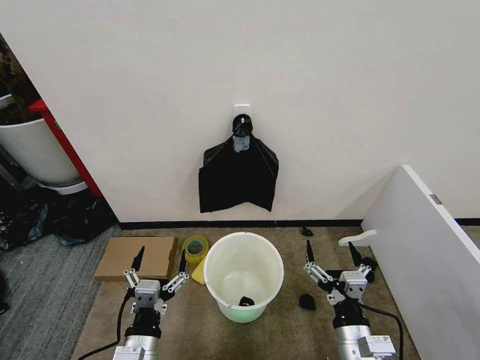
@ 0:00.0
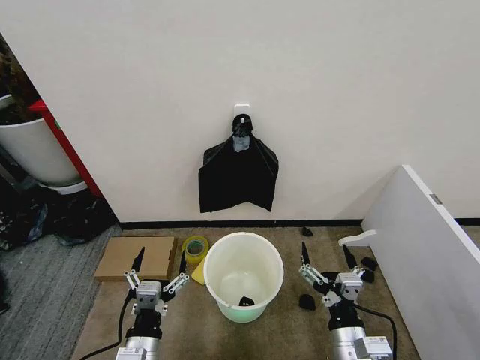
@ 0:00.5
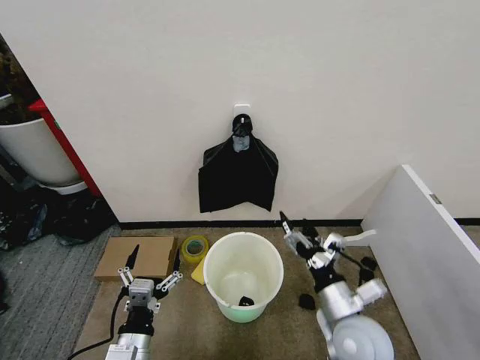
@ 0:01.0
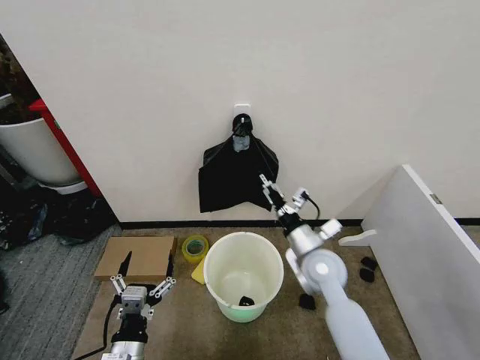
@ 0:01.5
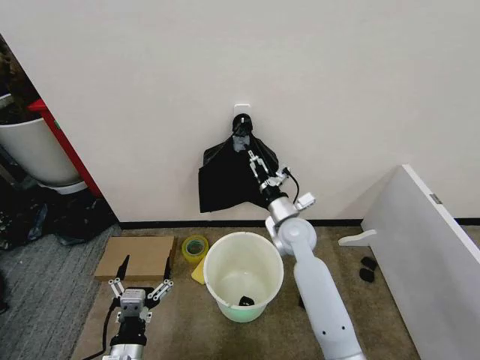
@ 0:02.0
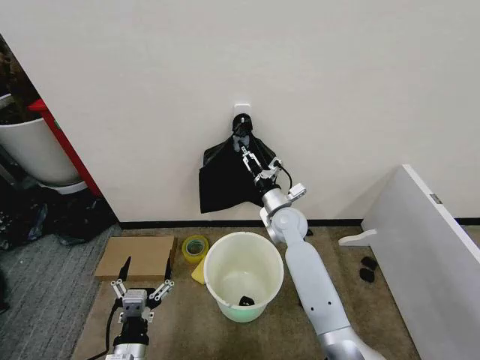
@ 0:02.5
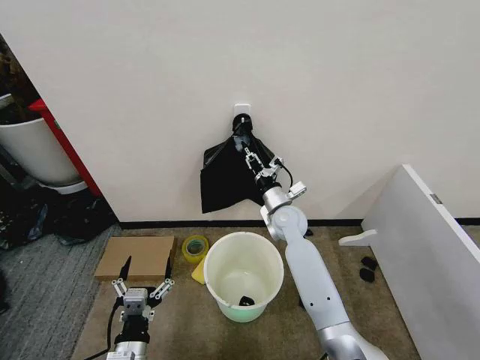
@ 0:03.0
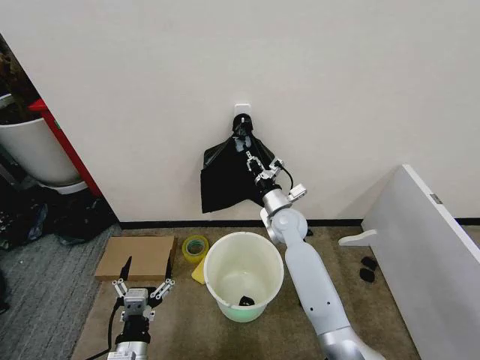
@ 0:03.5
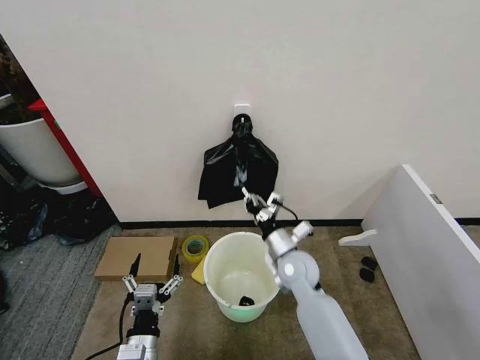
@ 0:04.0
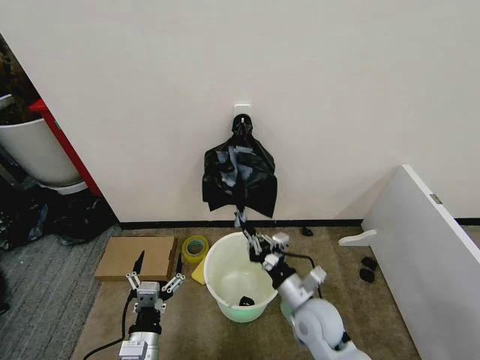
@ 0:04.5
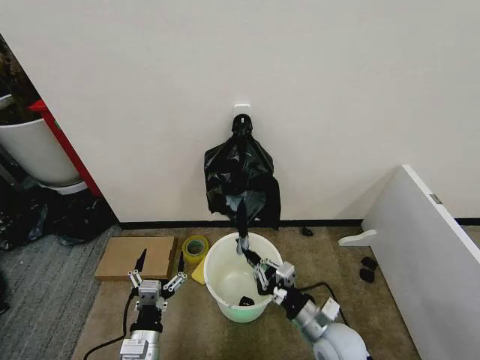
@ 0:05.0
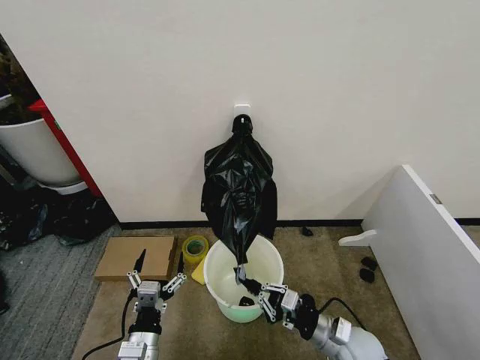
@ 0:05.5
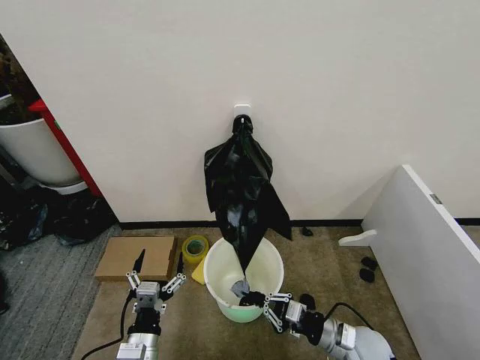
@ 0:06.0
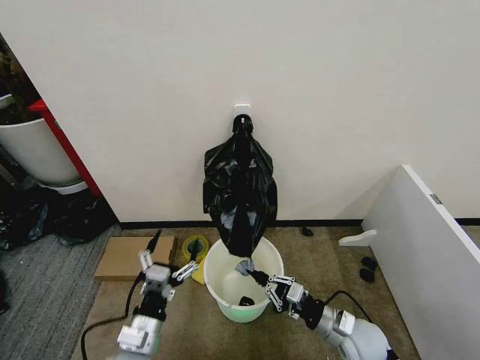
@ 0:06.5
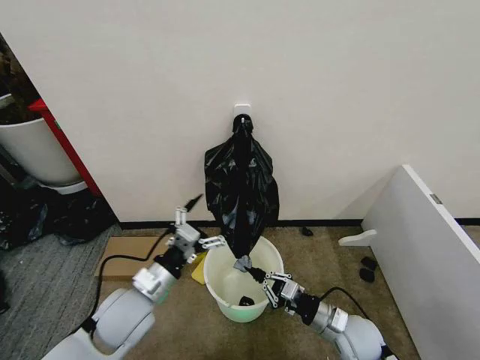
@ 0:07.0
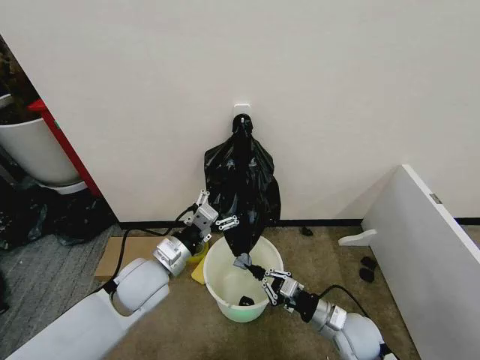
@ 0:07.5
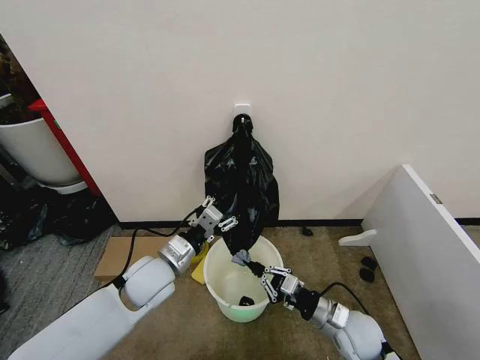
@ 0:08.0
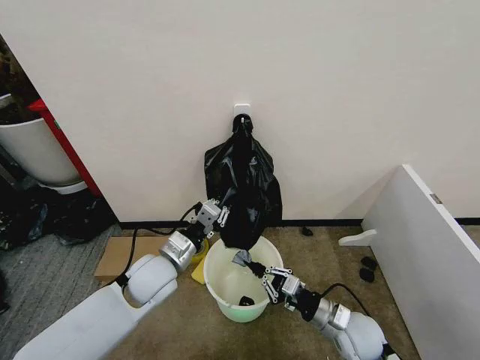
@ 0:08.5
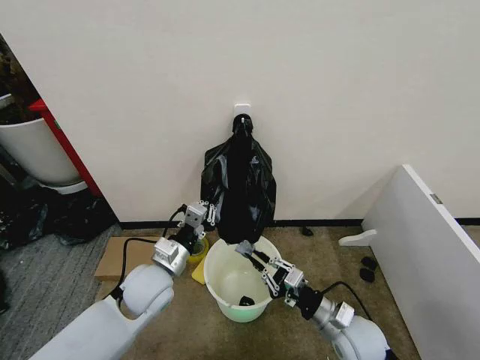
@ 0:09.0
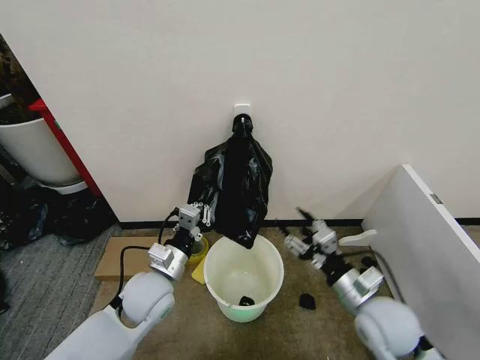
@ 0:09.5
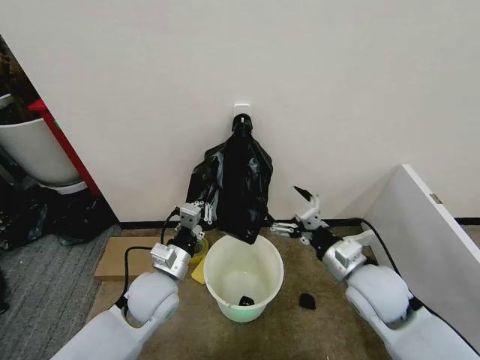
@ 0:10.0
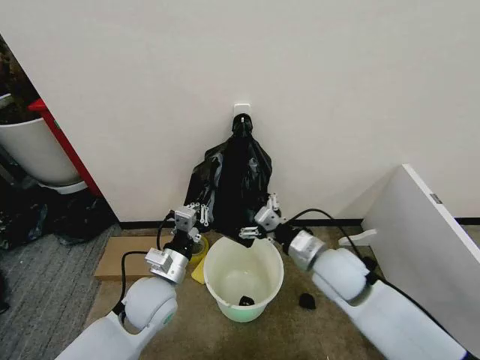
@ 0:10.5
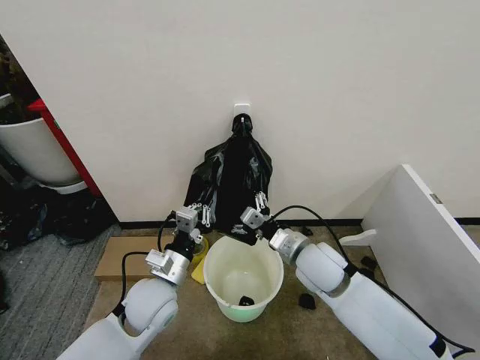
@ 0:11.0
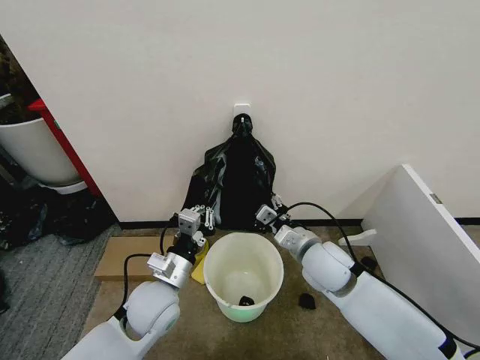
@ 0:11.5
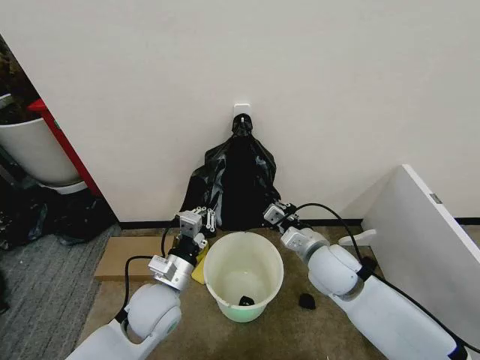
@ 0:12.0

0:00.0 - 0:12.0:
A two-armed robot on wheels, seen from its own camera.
Task of the whole recording: Place the garbage bag over the trash bin.
0:02.0 - 0:04.0: The right gripper goes some 10 cm backward, and closes its fingers.
0:04.0 - 0:06.0: The right gripper is displaced backward, to the right and downward by roughly 20 cm.
0:06.0 - 0:08.0: The left gripper shifts roughly 20 cm forward and upward, and closes its fingers.
0:08.0 - 0:10.0: The left gripper closes its fingers. The right gripper is displaced upward by roughly 15 cm, and opens.
0:10.0 - 0:12.0: The right gripper travels to the left and forward by some 10 cm, and closes its fingers.

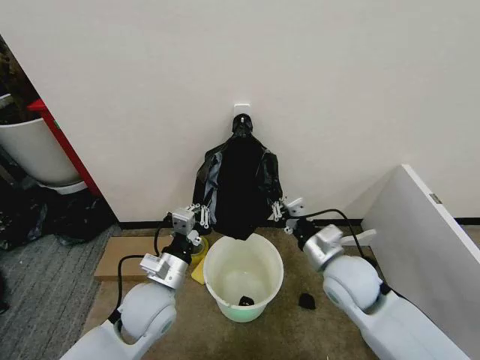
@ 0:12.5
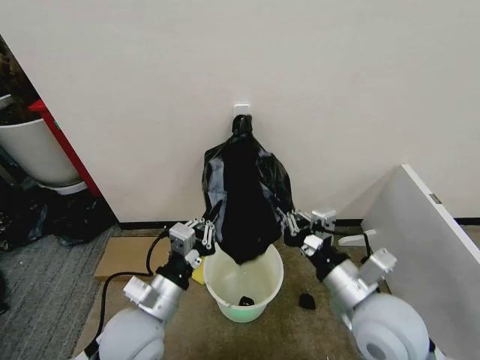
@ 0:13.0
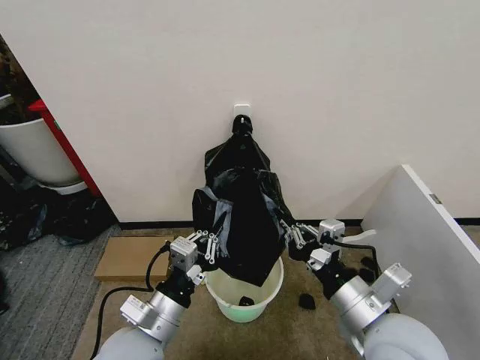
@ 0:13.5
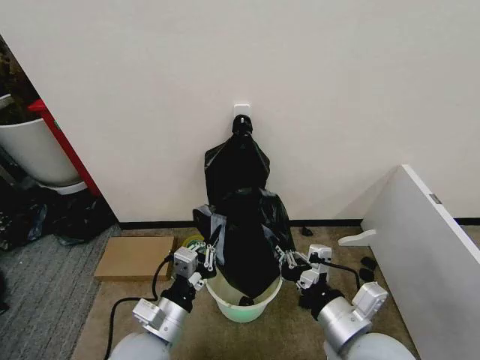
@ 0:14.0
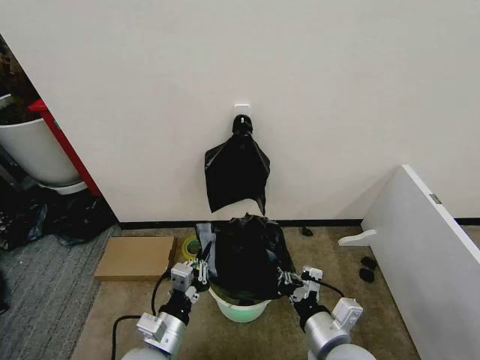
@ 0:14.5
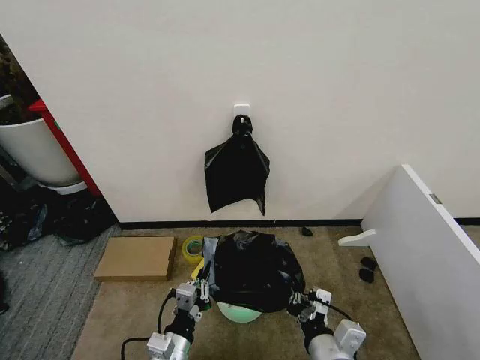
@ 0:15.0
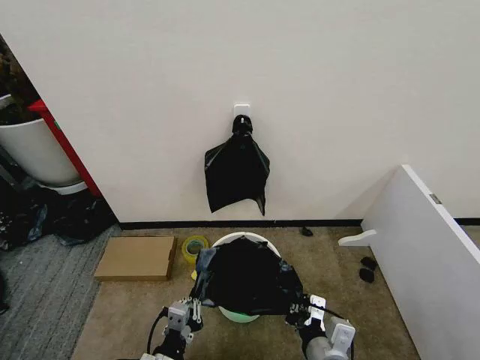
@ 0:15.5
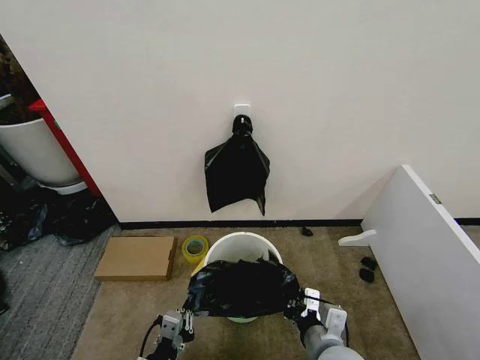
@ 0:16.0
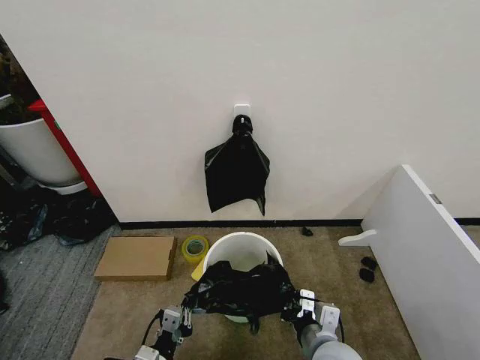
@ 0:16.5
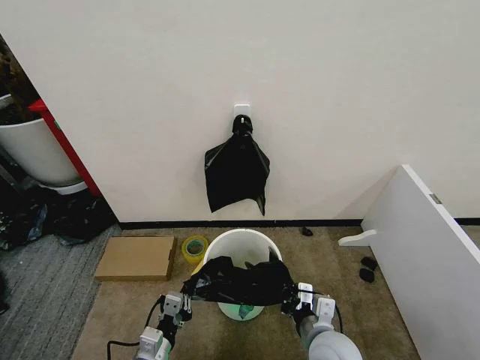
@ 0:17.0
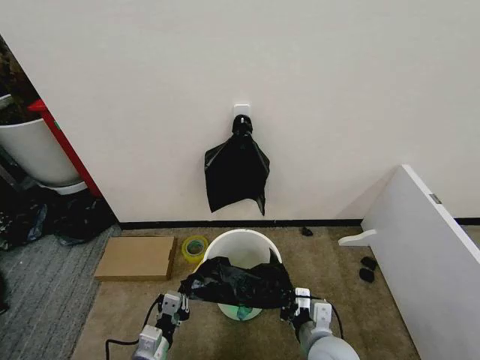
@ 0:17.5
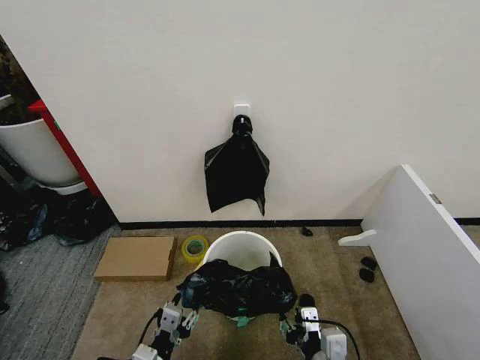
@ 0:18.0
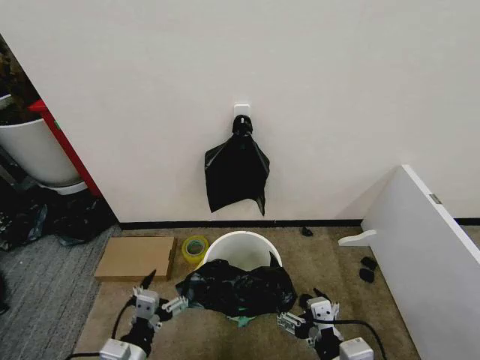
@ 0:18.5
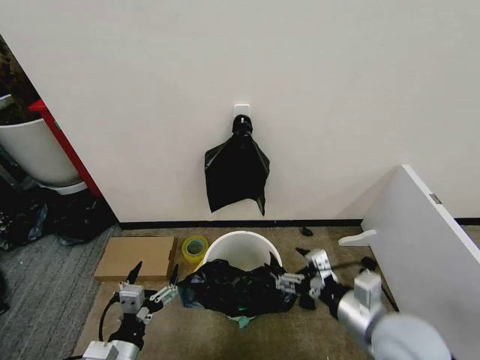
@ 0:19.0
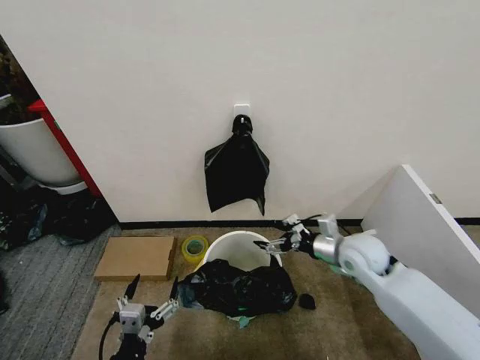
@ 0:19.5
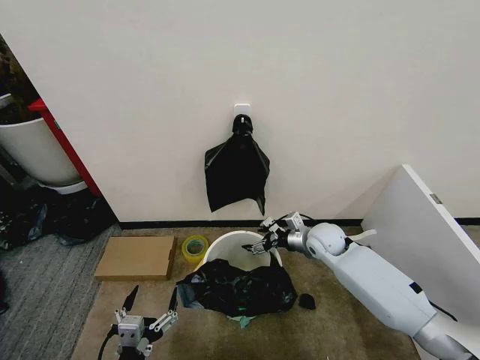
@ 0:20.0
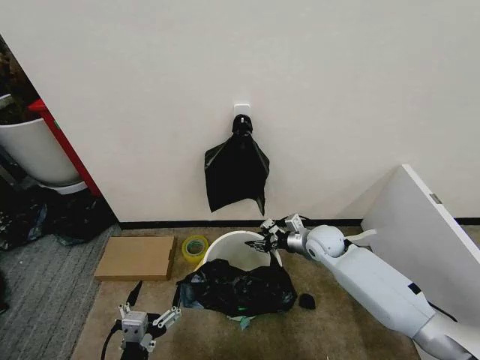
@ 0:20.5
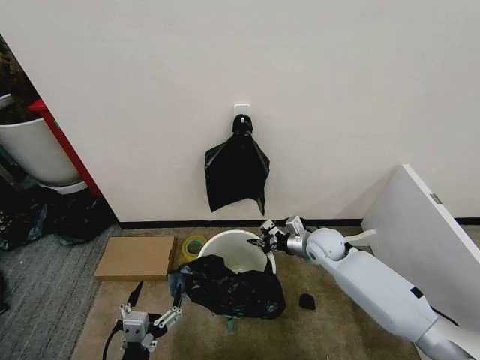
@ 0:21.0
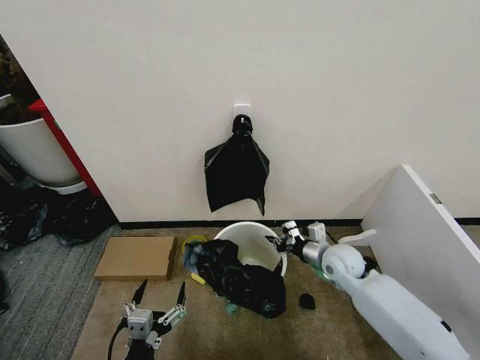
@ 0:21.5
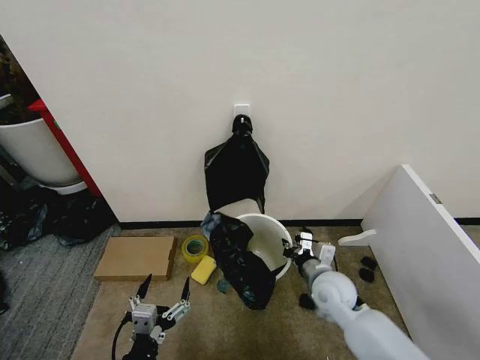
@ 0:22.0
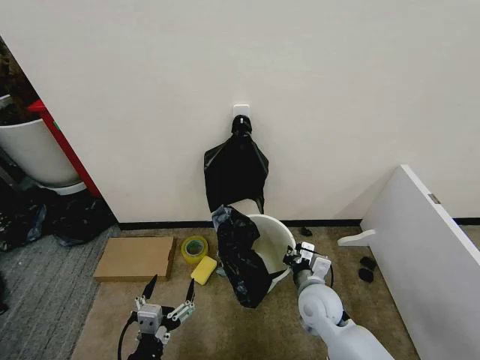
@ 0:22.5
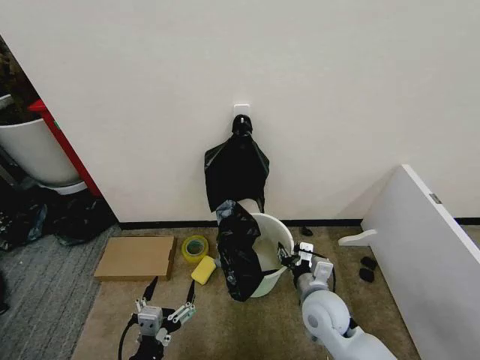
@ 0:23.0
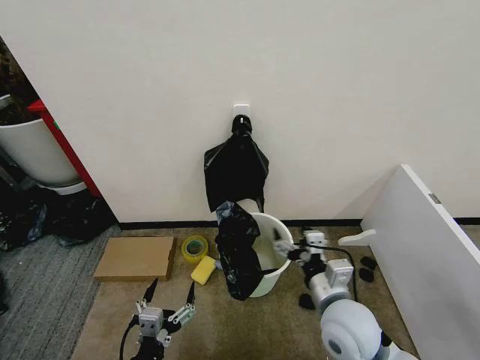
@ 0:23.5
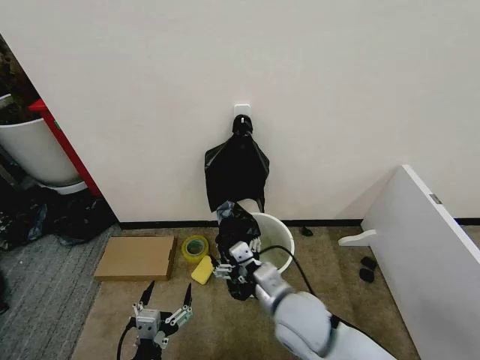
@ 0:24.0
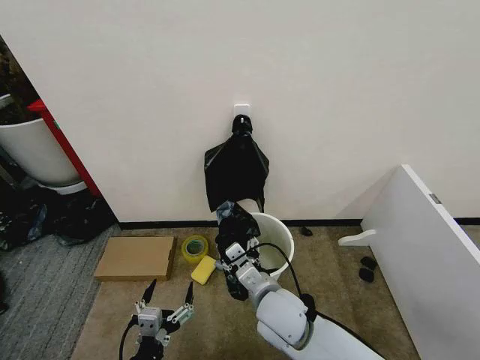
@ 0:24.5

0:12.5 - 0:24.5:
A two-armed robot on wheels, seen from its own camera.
Task of the whole recording: Place the garbage bag over the trash bin.
0:12.5 - 0:14.5: The right gripper shifts about 15 cm backward. The left gripper is displaced backward and downward by approximately 10 cm.
0:14.5 - 0:16.5: The left gripper moves downward, approximately 5 cm.
0:16.5 - 0:18.5: The left gripper moves upward, roughly 5 cm, and opens up. Meanwhile the right gripper heads backward and upward, covering approximately 10 cm, and opens.
0:18.5 - 0:20.5: The right gripper goes about 35 cm forward, and closes its fingers.
0:20.5 - 0:22.5: The right gripper goes approximately 15 cm backward, and closes up.
0:22.5 - 0:24.5: The right gripper goes about 15 cm to the left and upward, and opens its fingers.

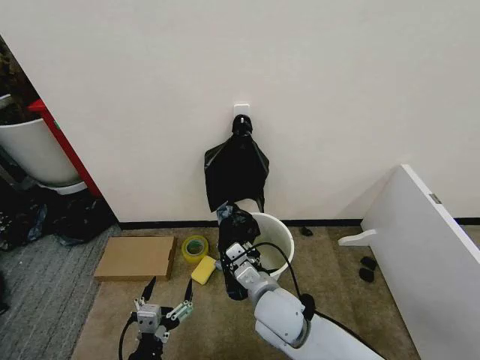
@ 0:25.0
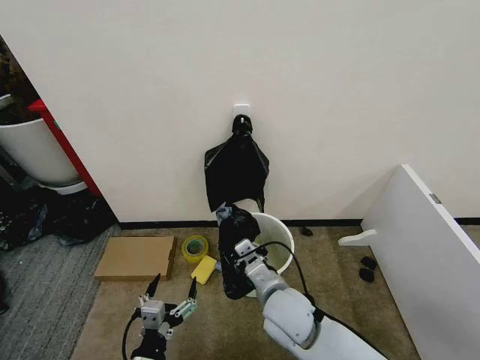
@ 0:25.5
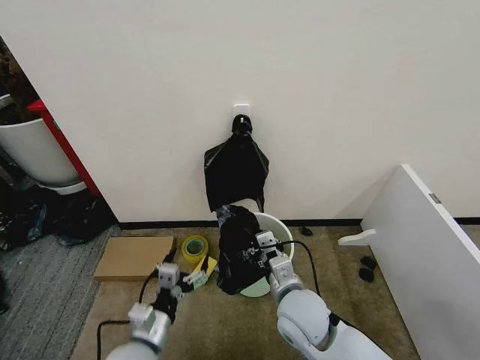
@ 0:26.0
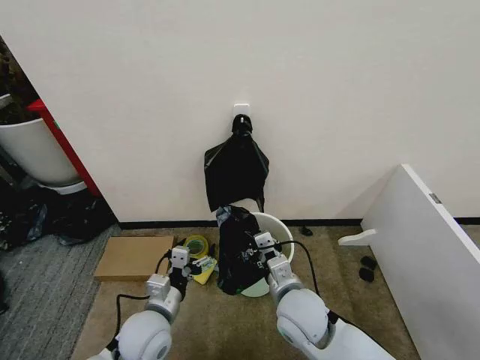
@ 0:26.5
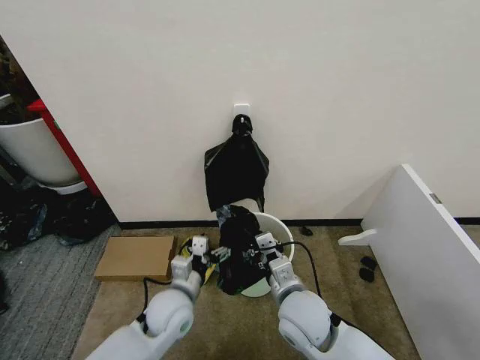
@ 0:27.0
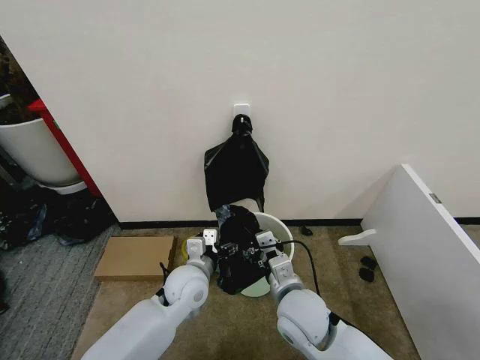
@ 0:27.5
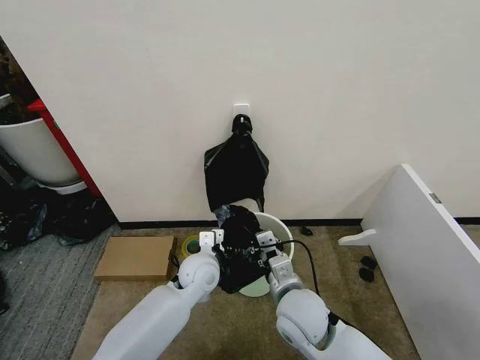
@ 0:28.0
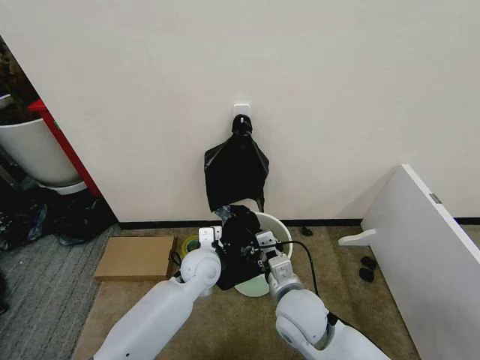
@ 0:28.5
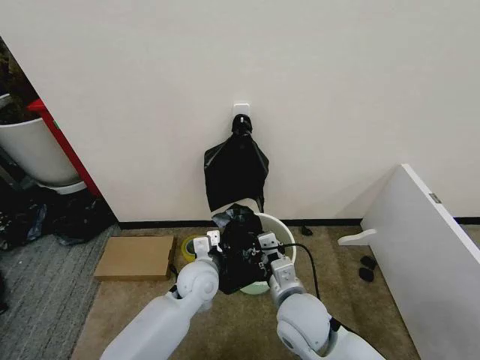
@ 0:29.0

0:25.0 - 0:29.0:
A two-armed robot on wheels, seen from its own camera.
Task of the whole recording: Place the garbage bag over the trash bin.
0:25.0 - 0:27.0: The left gripper heads forward, covering some 20 cm.
0:27.0 - 0:29.0: The left gripper goes roughly 5 cm forward, and closes.
